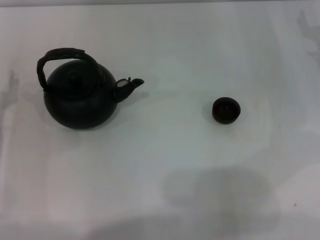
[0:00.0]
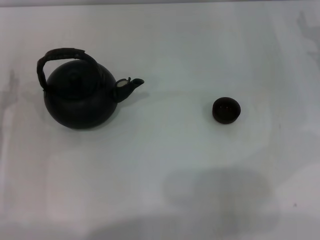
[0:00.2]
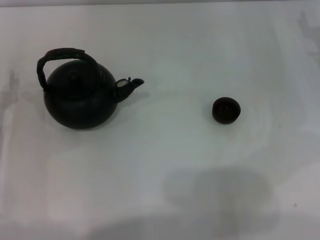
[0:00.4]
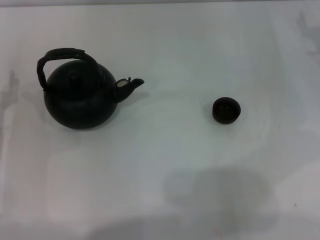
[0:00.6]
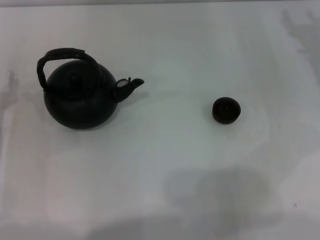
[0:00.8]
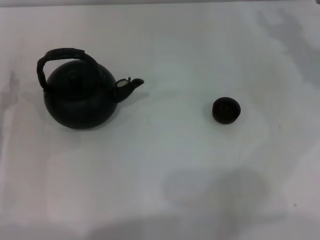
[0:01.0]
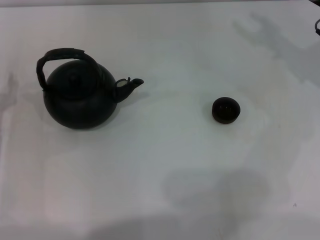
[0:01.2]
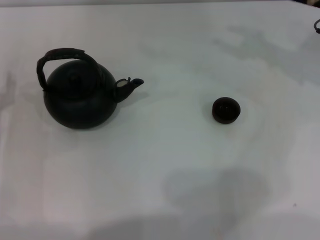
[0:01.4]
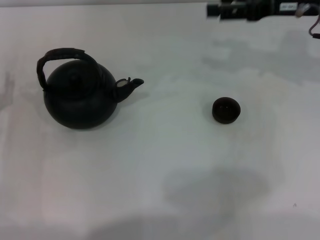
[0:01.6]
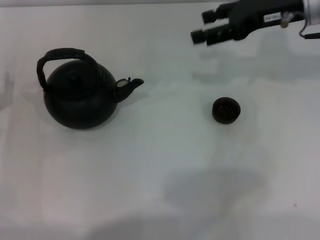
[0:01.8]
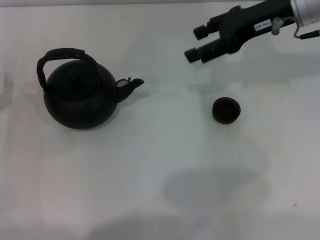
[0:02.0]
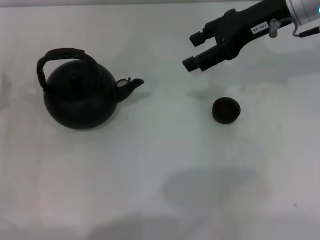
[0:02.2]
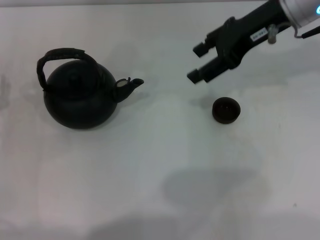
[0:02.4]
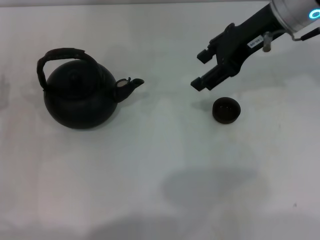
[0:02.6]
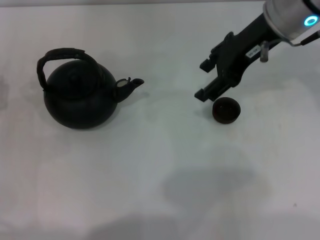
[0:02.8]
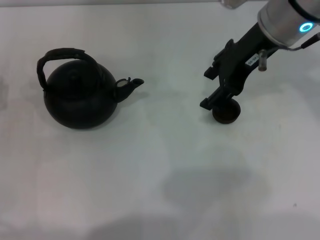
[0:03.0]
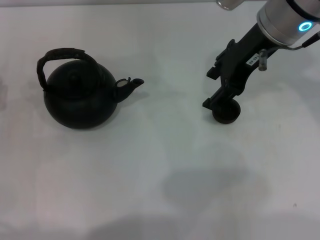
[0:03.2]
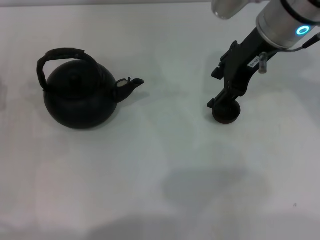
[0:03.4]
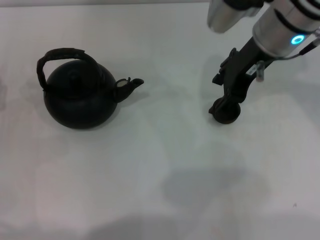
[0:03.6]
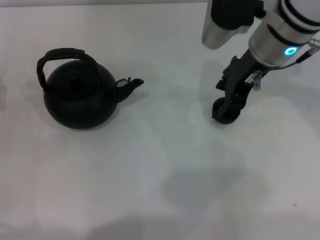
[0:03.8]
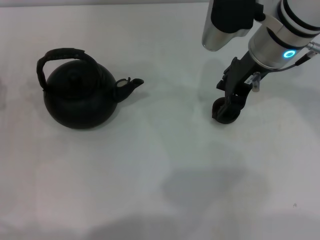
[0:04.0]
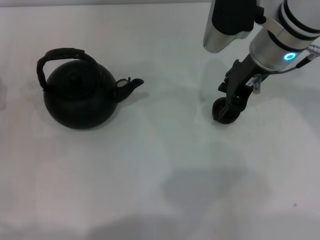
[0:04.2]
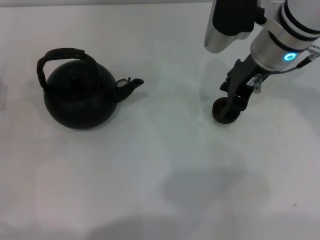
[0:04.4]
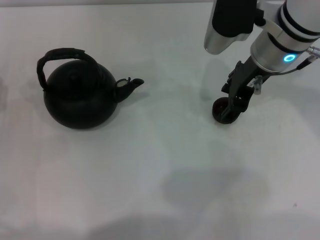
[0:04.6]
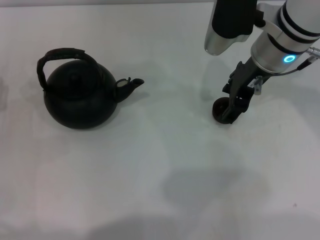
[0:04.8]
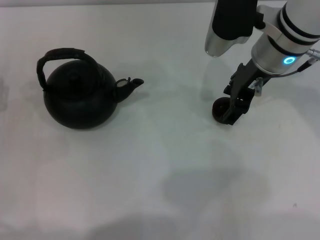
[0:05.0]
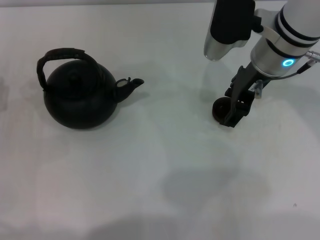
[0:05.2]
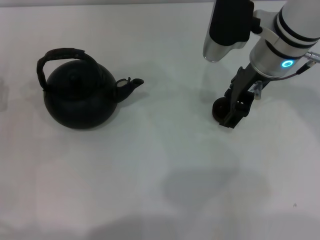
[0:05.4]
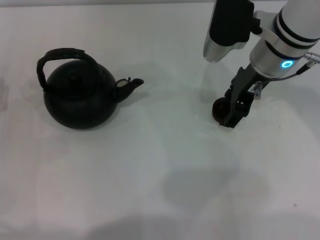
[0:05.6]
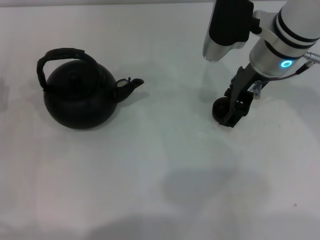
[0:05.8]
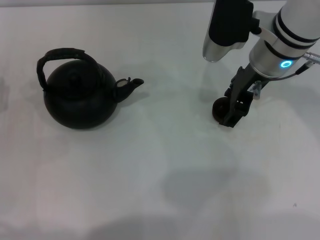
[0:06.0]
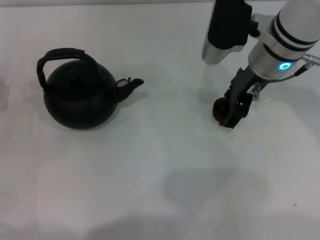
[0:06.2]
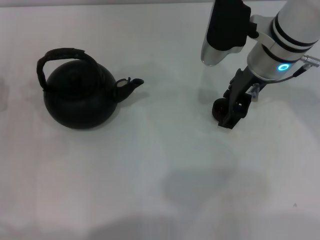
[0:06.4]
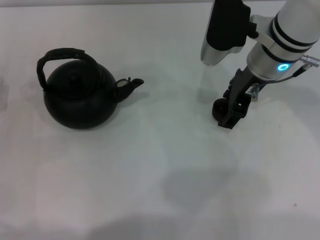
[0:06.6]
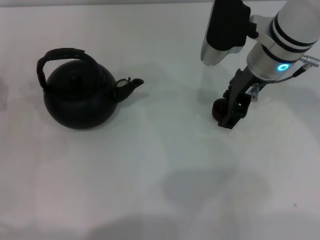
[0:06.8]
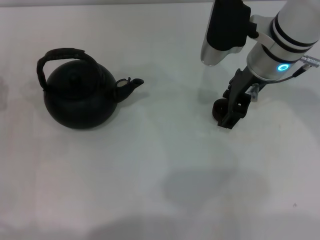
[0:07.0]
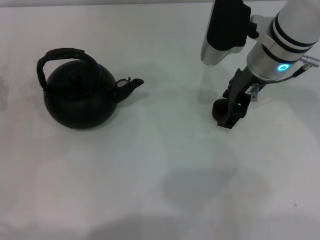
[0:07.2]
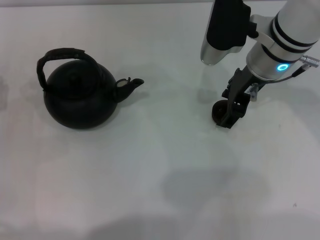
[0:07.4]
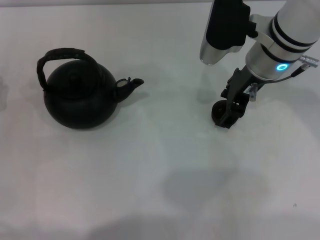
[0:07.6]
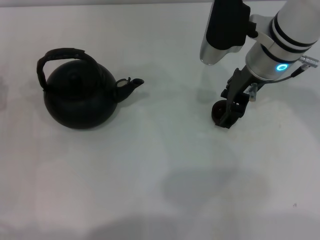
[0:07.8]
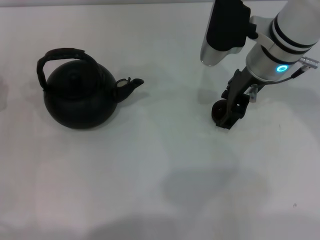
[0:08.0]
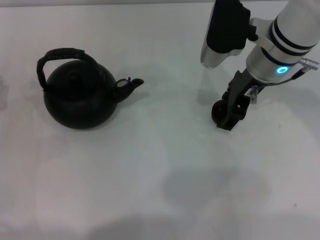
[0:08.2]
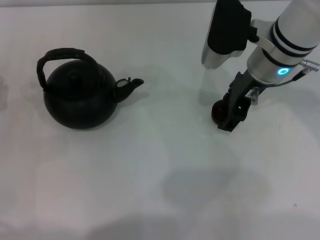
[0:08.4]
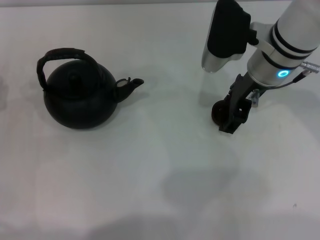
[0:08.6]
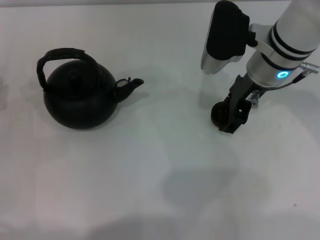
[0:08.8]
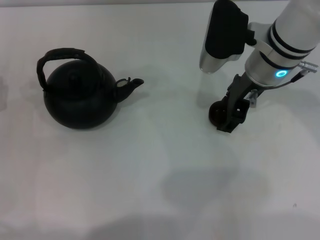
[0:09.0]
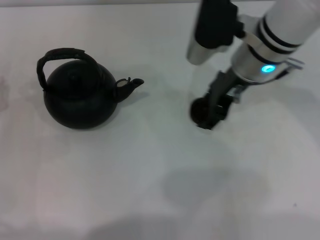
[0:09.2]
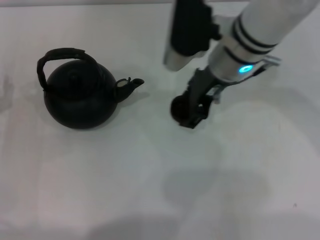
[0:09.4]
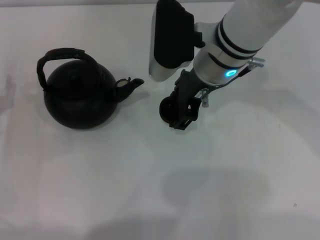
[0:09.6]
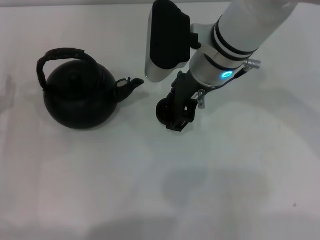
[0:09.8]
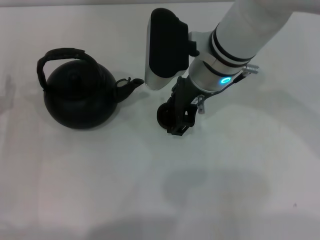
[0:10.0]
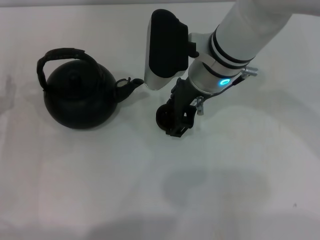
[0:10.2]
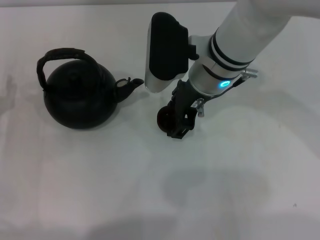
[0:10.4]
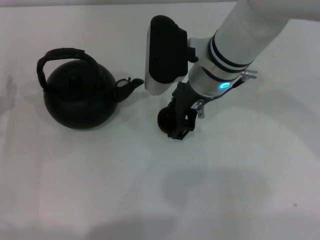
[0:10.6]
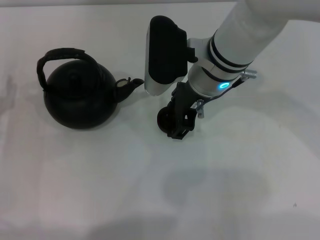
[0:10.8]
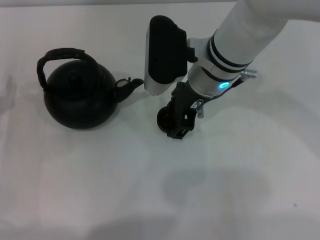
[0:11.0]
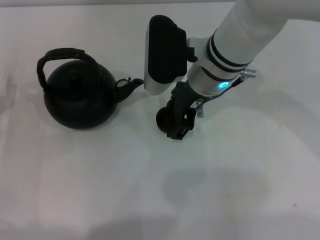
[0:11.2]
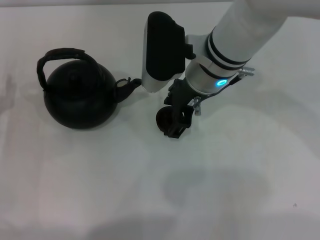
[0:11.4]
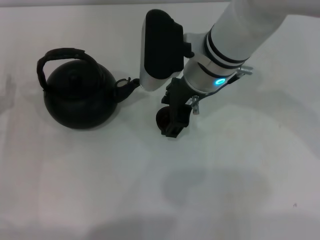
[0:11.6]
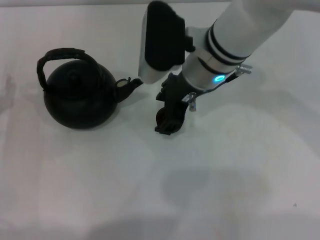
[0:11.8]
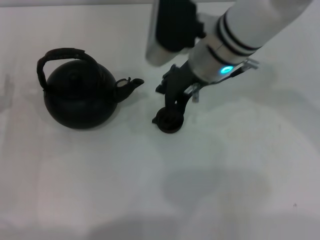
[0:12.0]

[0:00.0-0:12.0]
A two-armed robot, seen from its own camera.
Task of the whole recording: Grasp the handle of the teapot with one hand and pour tea into the teacup.
Step, 0:00.0 to 0:09.0: Pick up the teacup with the right gripper.
Step, 0:09.2 to 0:11.8: Place the teacup in the center of view with the right gripper.
0:00.0 to 0:01.6: The right gripper shifts about 10 cm upward and to the left.
0:01.6 to 0:03.0: The right gripper goes some 10 cm to the left and upward.
0:03.0 to 0:04.4: The grippers stay close to where they were, moving slightly.
0:04.4 to 0:06.0: The grippers move only a little.
0:06.0 to 0:07.6: Both grippers stay about where they are.
0:07.6 to 0:09.0: Neither gripper changes place.
0:09.0 to 0:10.4: The right gripper heads to the left, covering some 5 cm.
0:10.4 to 0:12.0: There are only small adjustments of the grippers.

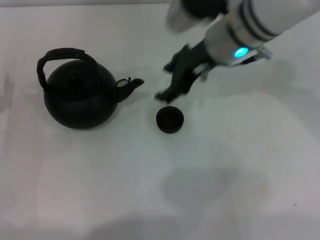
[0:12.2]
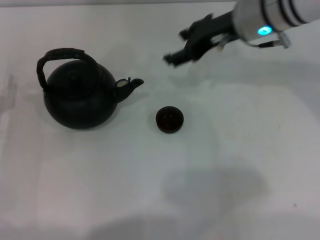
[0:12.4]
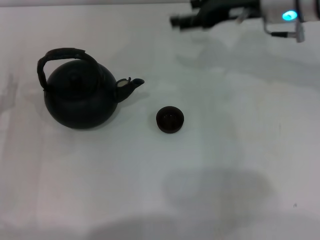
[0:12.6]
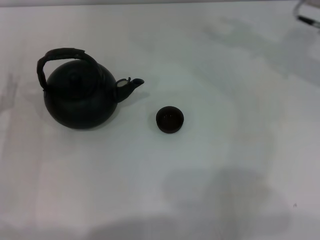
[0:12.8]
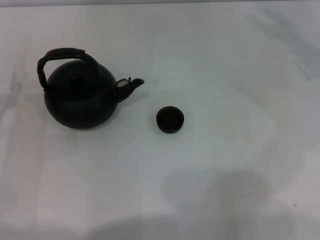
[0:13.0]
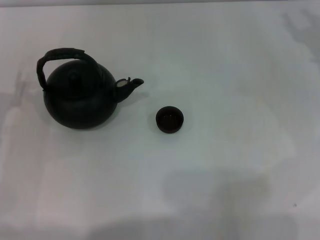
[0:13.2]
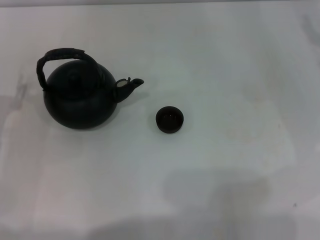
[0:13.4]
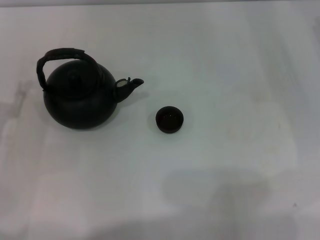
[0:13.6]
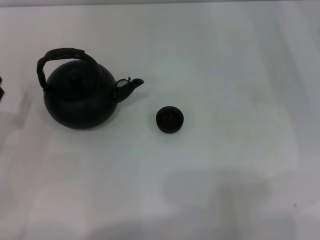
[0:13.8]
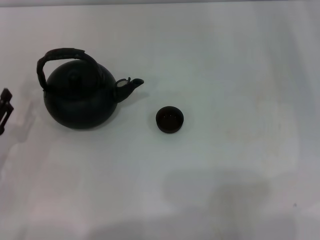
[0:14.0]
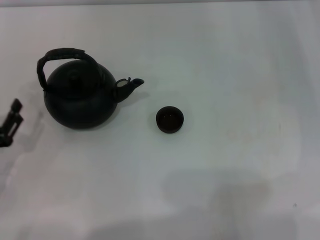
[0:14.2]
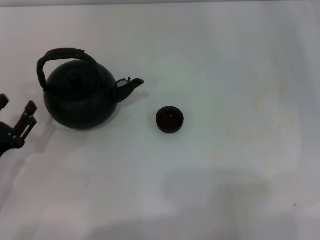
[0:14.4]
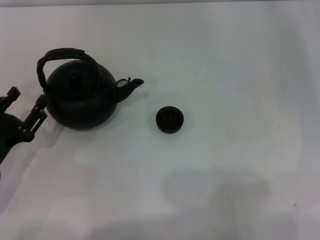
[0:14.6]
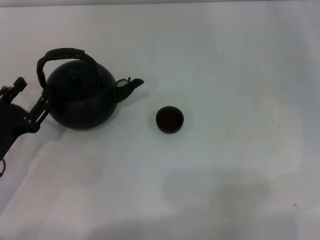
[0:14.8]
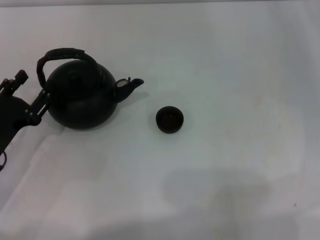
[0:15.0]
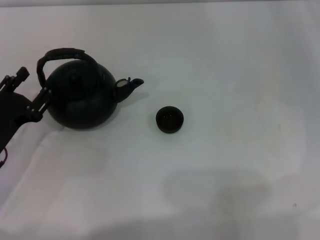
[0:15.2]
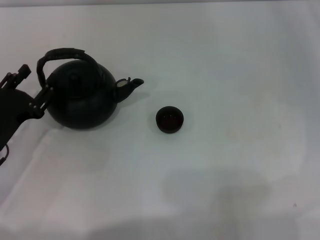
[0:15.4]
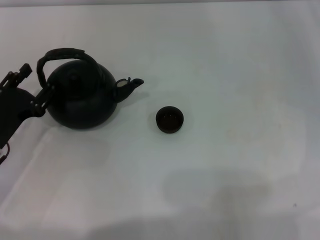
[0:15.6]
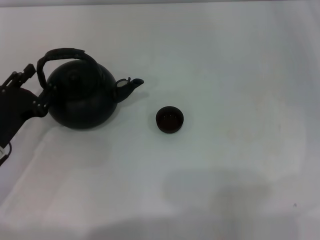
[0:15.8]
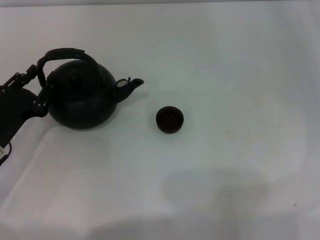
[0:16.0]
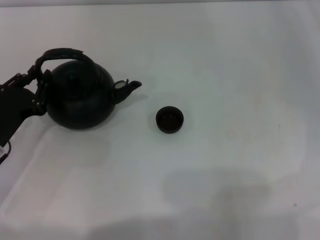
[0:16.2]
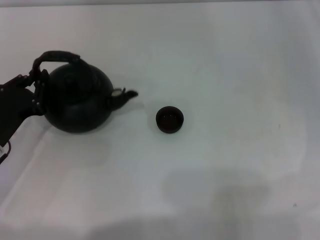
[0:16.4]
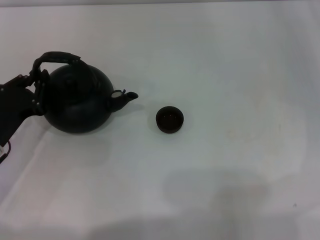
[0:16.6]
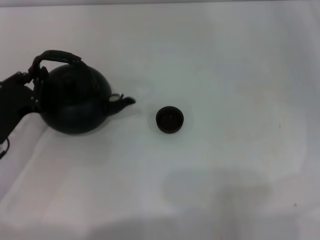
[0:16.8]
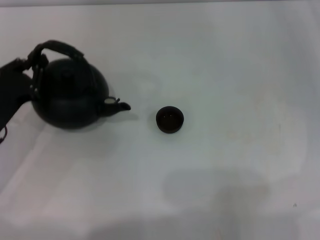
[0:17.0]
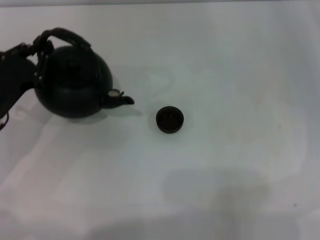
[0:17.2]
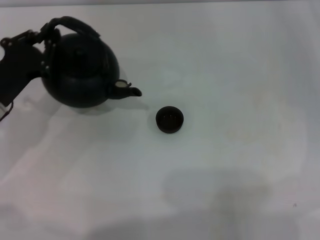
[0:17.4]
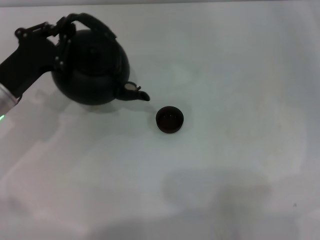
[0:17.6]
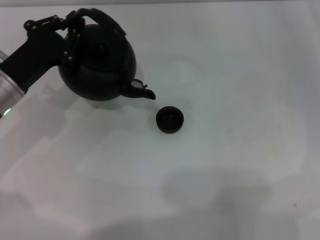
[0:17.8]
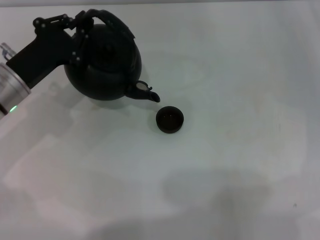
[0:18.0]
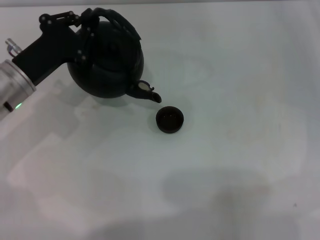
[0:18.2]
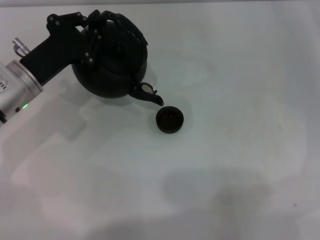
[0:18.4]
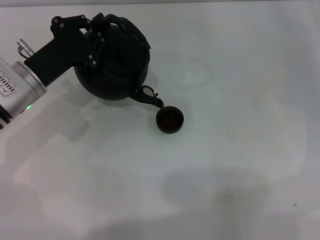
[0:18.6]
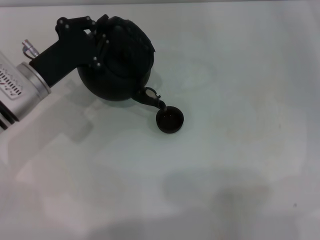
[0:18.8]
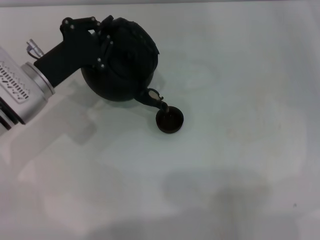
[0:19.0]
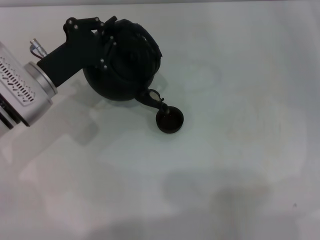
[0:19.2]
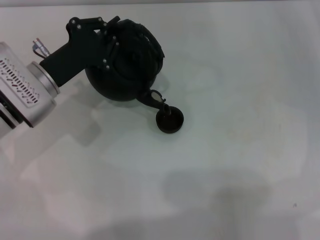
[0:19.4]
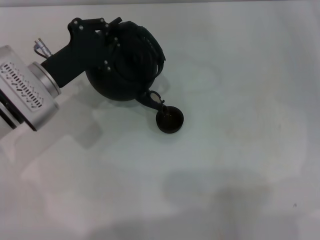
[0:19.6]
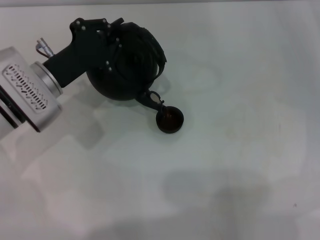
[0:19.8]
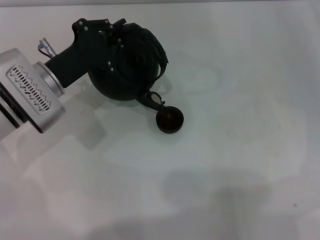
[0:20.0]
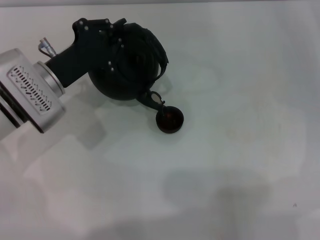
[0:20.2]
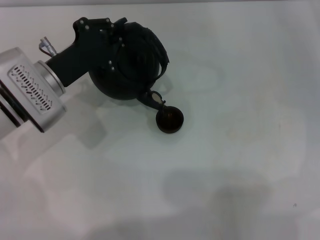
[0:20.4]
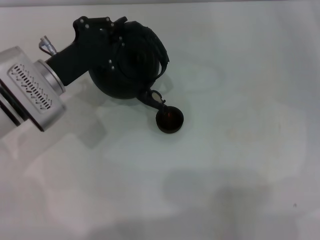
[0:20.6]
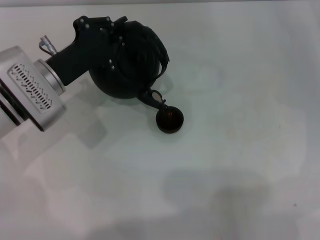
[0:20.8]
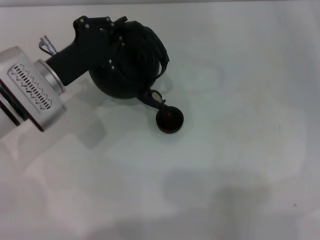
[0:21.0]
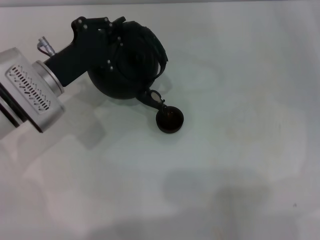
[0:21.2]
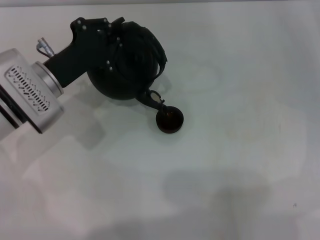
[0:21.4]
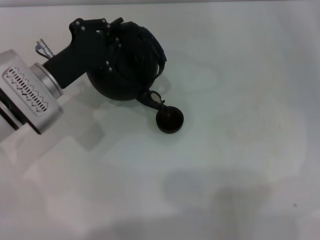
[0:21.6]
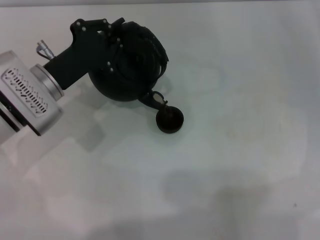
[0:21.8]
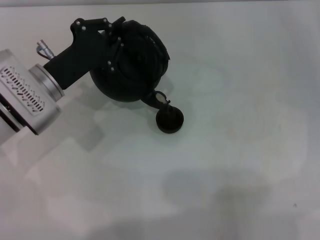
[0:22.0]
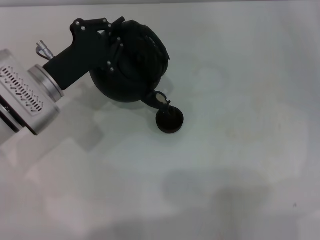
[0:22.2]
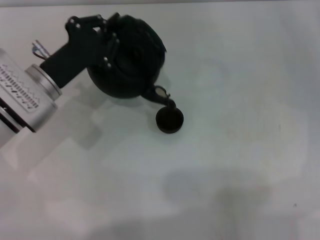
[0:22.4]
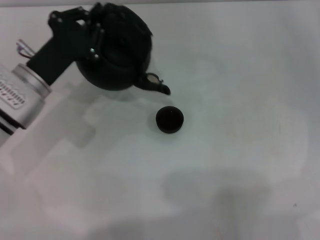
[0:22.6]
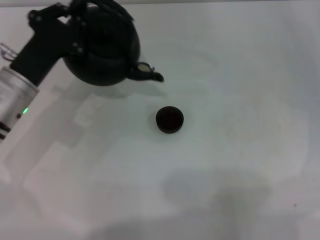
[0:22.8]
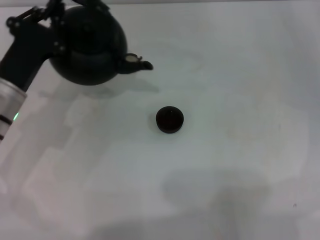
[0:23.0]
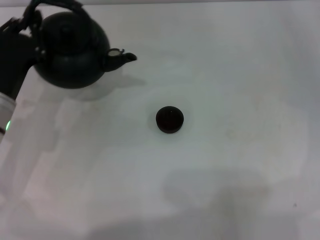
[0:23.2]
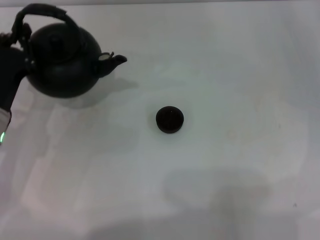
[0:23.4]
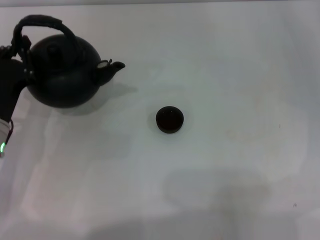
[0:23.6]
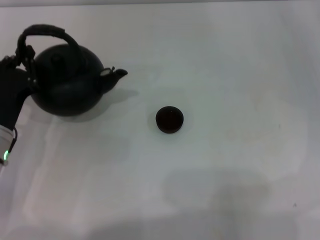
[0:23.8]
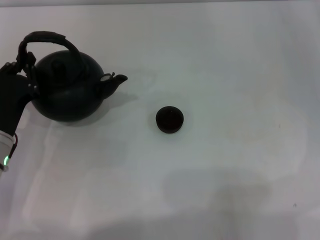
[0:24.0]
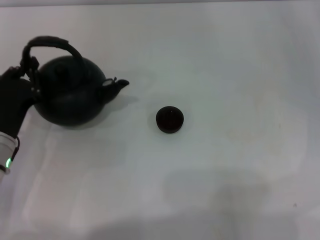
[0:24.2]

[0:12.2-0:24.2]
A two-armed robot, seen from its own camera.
Task of the whole recording: Grasp the handle of the teapot with one hand and pour tea into the teacup.
Step, 0:12.2 to 0:17.2: Pick up the teapot with the left gripper.
Step, 0:17.4 to 0:22.6: Pour tea into the teacup with the left gripper.
0:12.2 to 0:13.8: The right gripper goes approximately 25 cm to the right.
0:13.8 to 0:15.2: There are only small adjustments of the grippers.
0:15.2 to 0:16.6: The left gripper closes its fingers.
0:16.6 to 0:18.2: The left gripper heads forward and upward, covering roughly 10 cm.
0:18.2 to 0:19.8: There are only small adjustments of the grippers.
0:19.8 to 0:21.2: Both grippers stay about where they are.
0:21.2 to 0:22.6: The grippers make only small movements.
0:22.6 to 0:24.2: The left gripper travels backward by about 10 cm.
